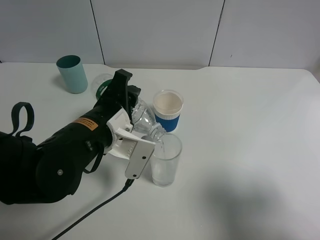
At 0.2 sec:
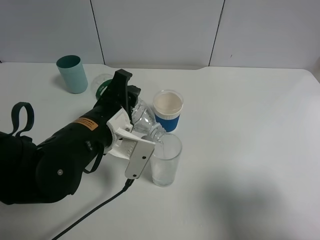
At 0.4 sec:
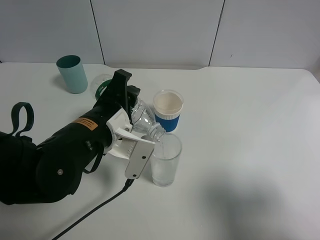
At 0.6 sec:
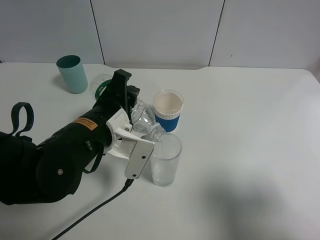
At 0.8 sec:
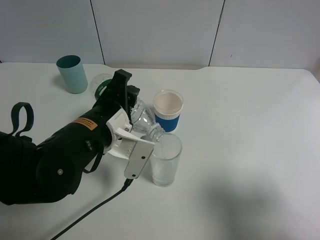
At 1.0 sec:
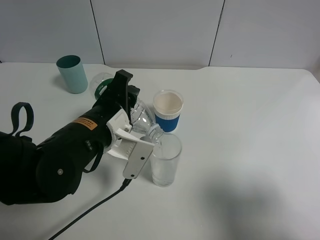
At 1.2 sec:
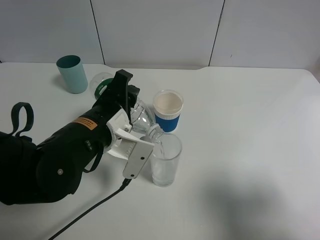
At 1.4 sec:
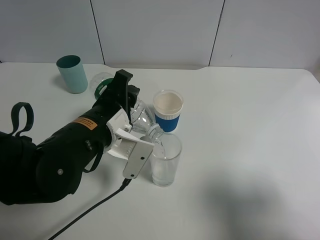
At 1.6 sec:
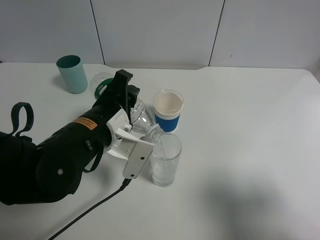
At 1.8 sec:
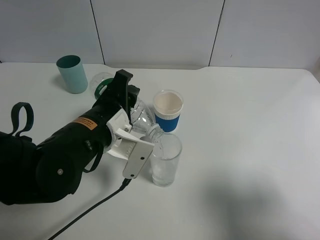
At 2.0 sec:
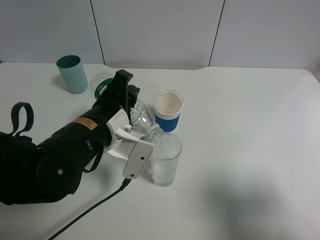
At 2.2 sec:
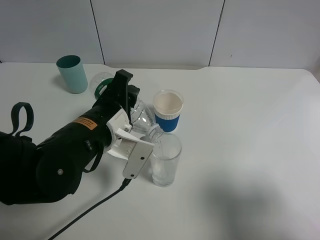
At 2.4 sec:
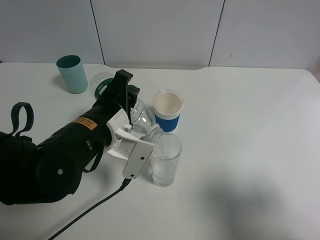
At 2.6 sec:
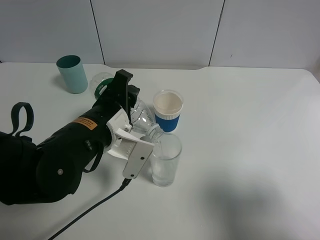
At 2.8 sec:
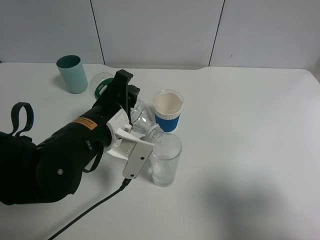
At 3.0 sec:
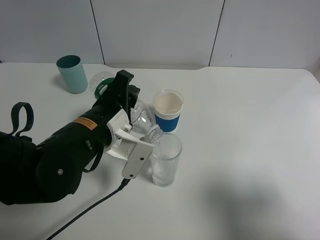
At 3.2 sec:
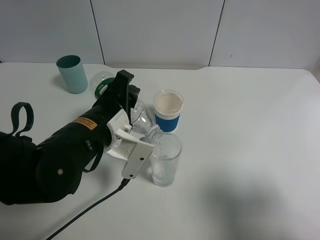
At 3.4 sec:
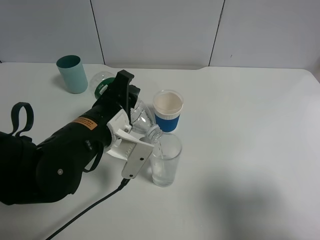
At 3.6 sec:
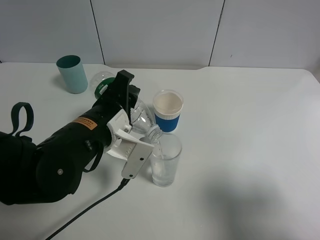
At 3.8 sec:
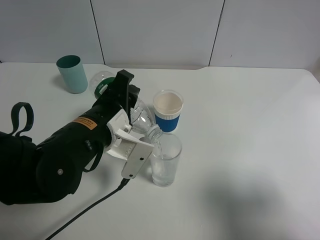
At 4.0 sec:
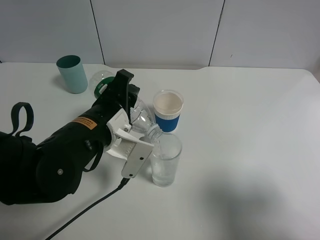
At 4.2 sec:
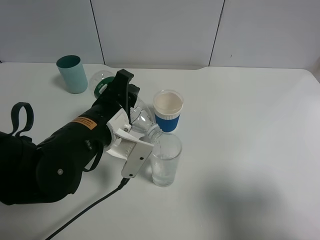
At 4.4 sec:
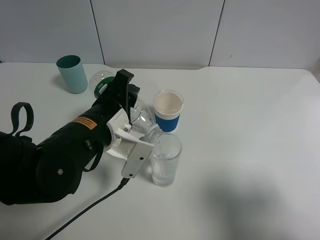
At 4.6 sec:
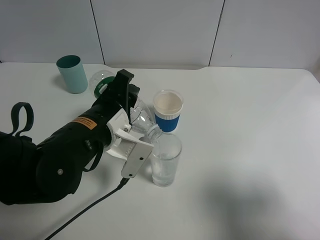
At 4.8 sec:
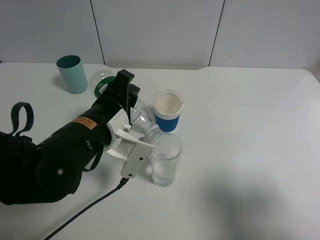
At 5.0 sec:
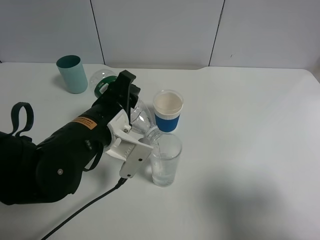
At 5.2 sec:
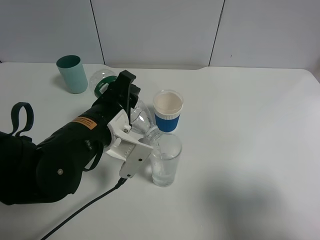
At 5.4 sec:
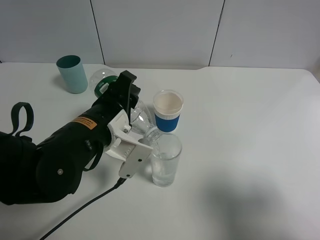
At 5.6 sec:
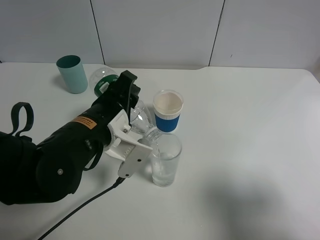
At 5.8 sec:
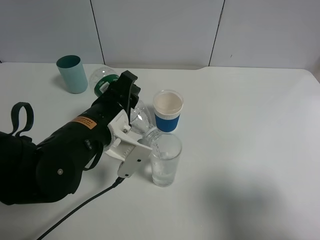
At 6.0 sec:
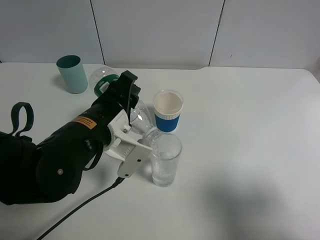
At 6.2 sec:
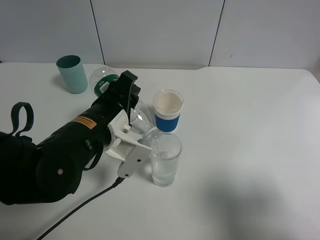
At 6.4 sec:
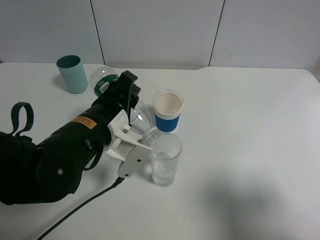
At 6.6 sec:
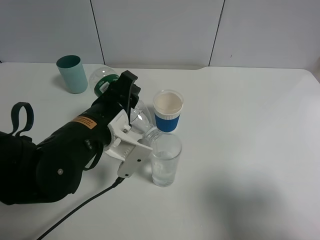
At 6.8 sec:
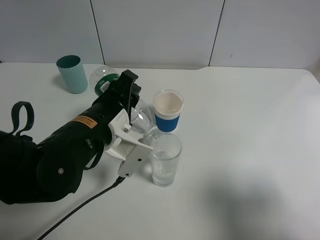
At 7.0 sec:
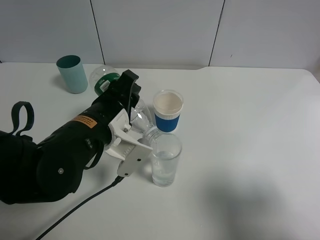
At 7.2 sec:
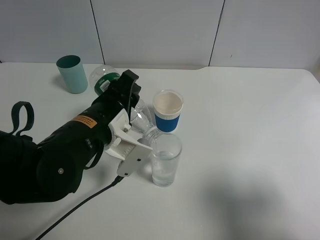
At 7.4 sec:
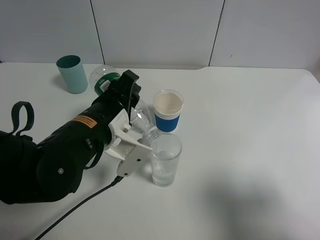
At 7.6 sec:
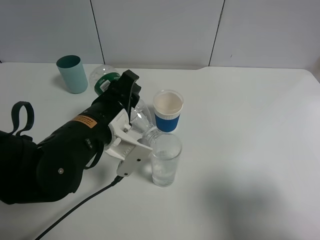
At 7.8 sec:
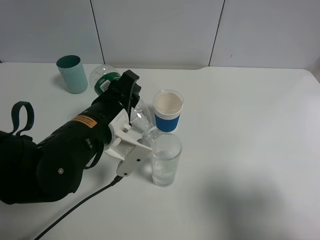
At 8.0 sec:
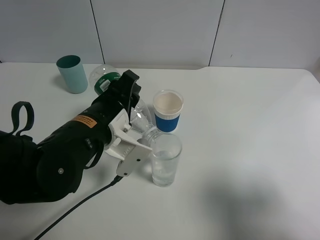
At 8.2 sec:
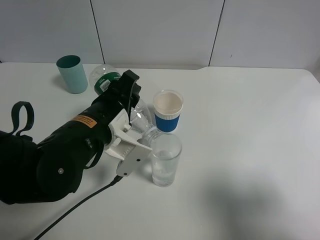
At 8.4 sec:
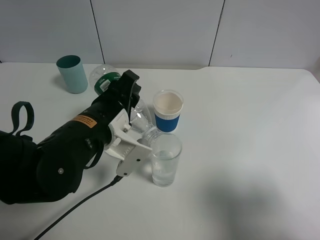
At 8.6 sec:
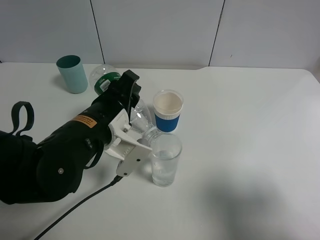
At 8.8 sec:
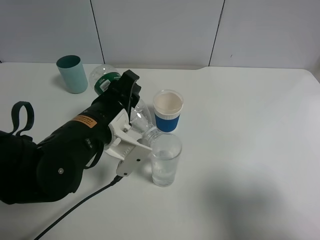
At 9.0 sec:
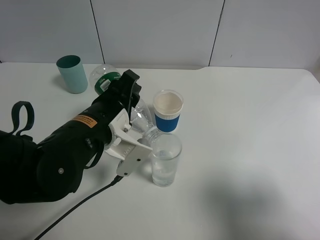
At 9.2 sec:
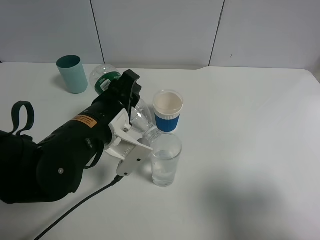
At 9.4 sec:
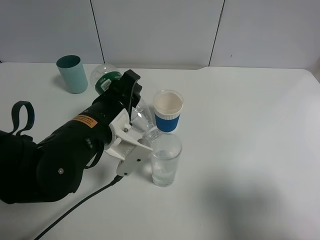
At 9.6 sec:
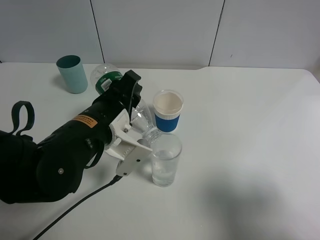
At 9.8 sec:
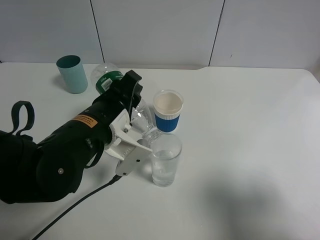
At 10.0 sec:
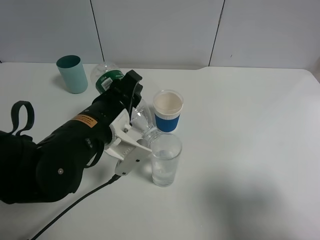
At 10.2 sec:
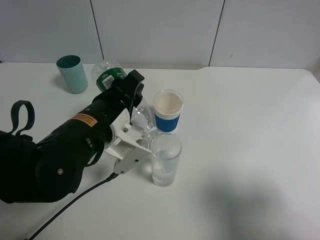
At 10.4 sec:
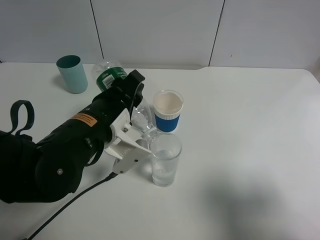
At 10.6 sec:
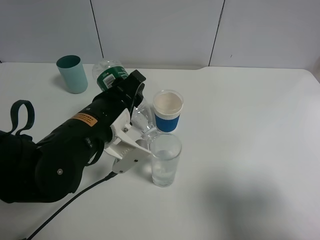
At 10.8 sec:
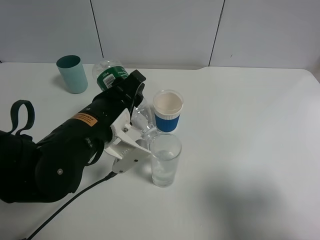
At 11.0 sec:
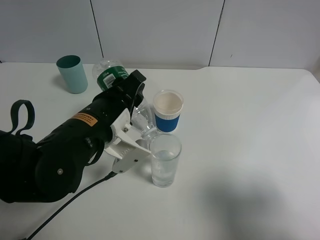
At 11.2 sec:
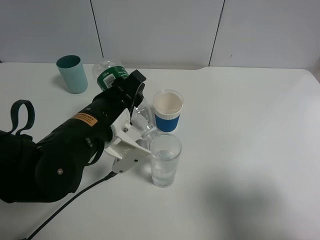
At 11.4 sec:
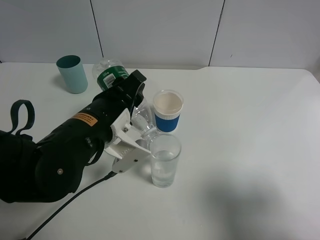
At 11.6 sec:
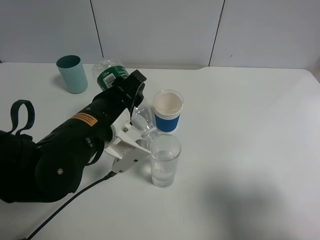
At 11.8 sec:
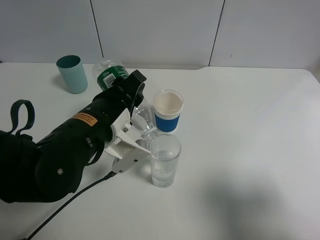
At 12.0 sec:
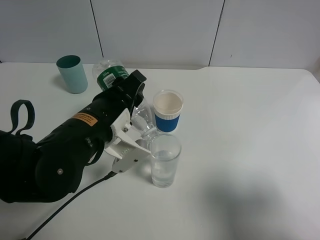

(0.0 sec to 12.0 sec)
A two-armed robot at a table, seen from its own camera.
Task of the whole recording: use a gripper to hold the bottle of the drink and pour it into a random cup.
0.0 sec - 4.4 sec: Neither gripper changes place.
4.4 sec - 6.0 sec: The grippers move only a little.
6.0 sec - 9.0 sec: Neither gripper changes place.
9.0 sec - 10.4 sec: There are only small adjustments of the grippers.
10.4 sec - 12.0 sec: Both grippers stay put.

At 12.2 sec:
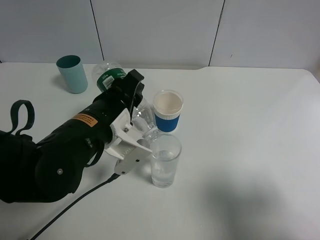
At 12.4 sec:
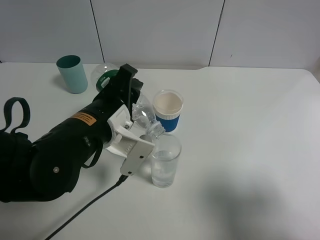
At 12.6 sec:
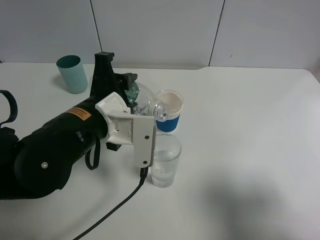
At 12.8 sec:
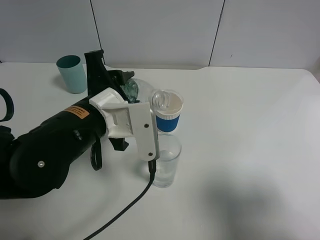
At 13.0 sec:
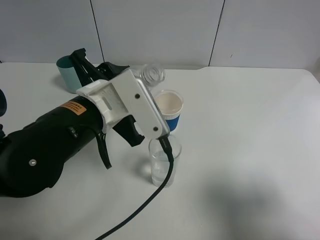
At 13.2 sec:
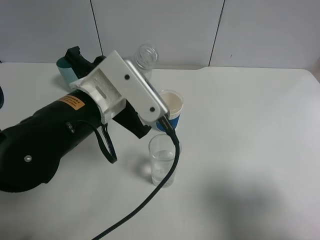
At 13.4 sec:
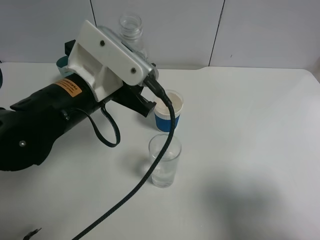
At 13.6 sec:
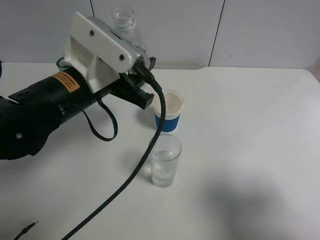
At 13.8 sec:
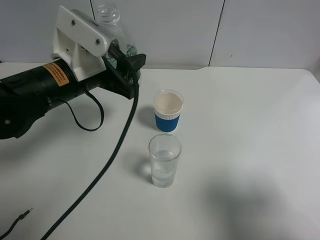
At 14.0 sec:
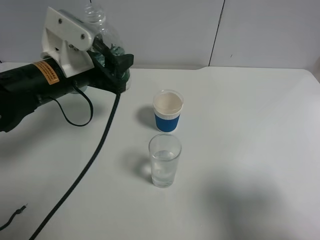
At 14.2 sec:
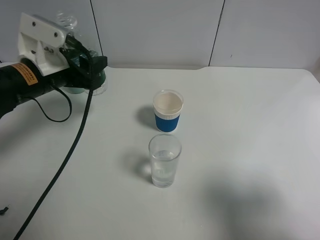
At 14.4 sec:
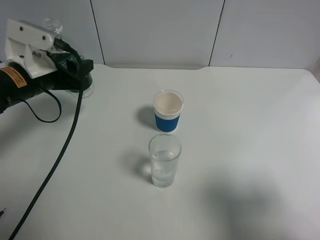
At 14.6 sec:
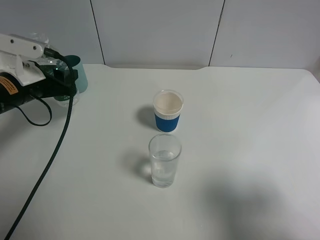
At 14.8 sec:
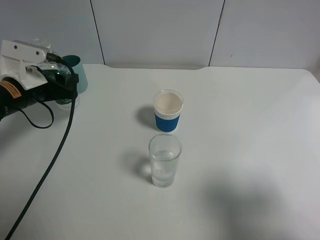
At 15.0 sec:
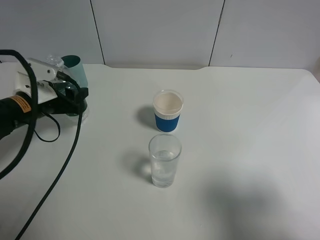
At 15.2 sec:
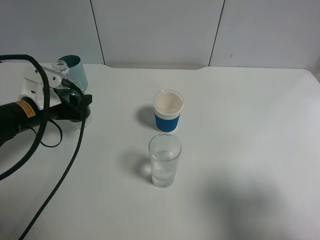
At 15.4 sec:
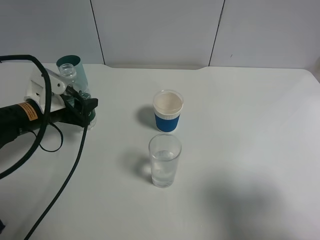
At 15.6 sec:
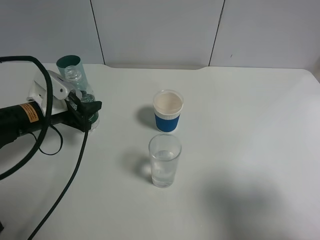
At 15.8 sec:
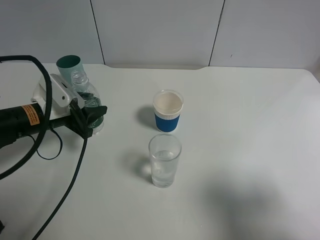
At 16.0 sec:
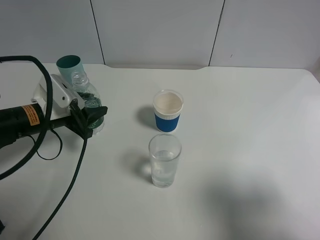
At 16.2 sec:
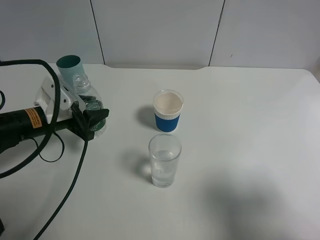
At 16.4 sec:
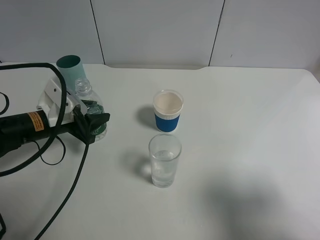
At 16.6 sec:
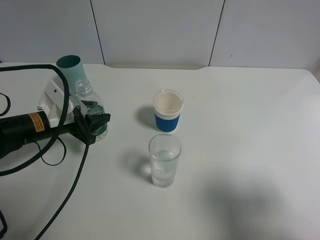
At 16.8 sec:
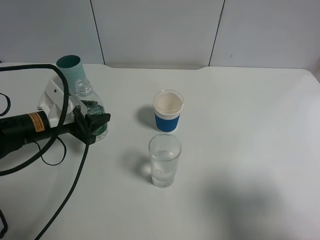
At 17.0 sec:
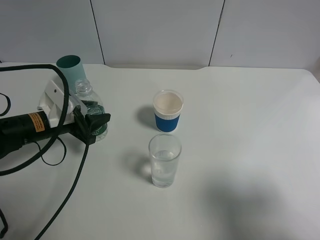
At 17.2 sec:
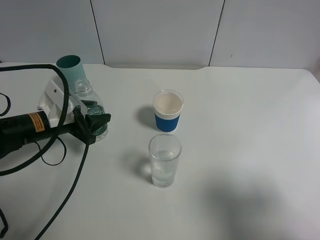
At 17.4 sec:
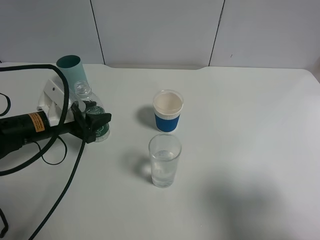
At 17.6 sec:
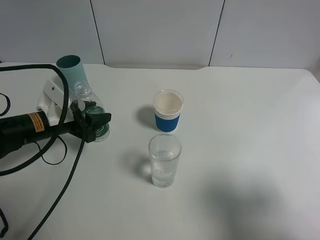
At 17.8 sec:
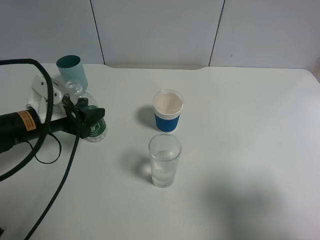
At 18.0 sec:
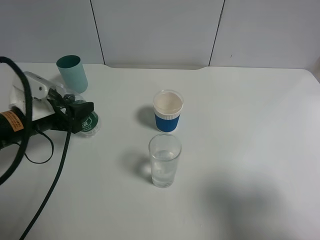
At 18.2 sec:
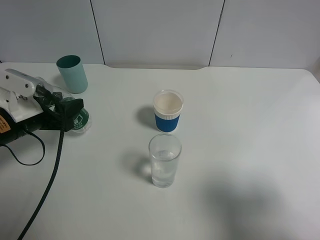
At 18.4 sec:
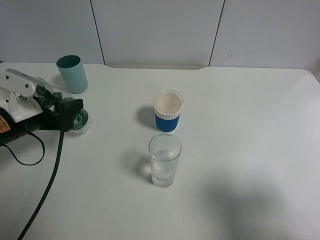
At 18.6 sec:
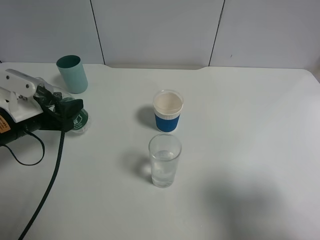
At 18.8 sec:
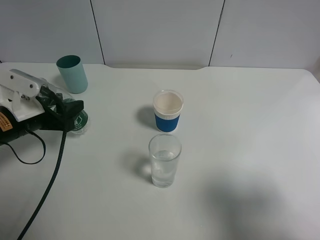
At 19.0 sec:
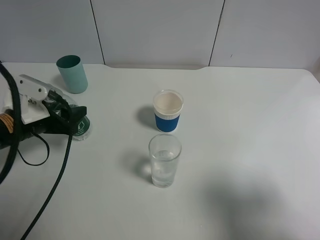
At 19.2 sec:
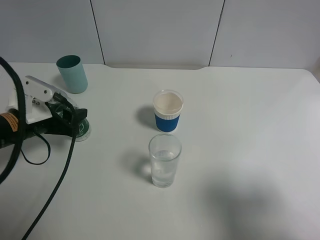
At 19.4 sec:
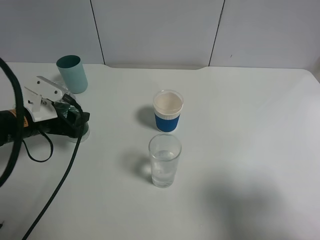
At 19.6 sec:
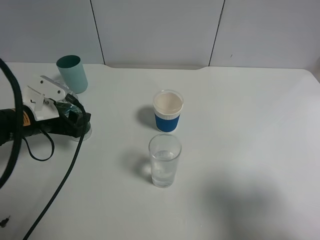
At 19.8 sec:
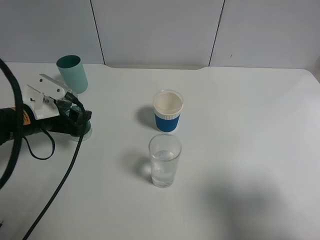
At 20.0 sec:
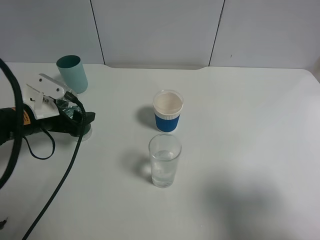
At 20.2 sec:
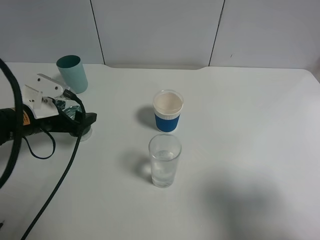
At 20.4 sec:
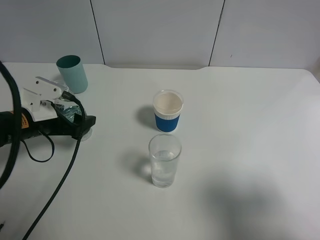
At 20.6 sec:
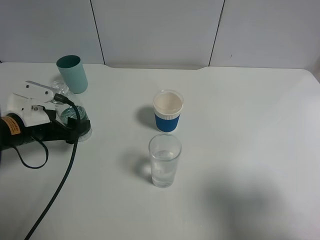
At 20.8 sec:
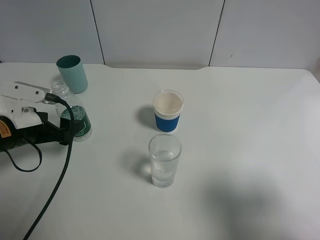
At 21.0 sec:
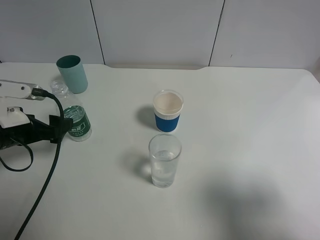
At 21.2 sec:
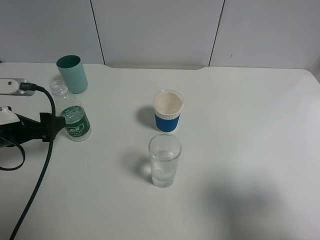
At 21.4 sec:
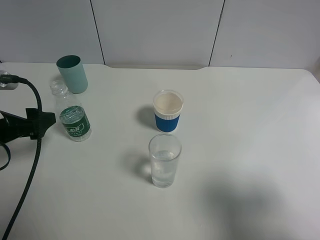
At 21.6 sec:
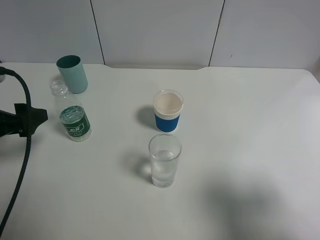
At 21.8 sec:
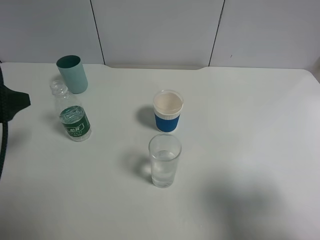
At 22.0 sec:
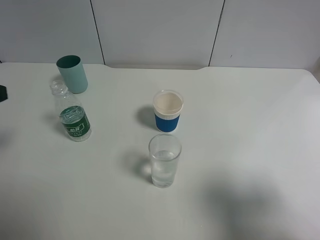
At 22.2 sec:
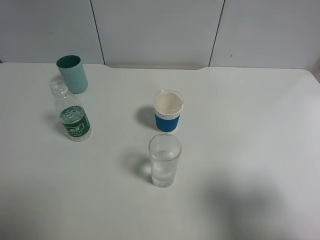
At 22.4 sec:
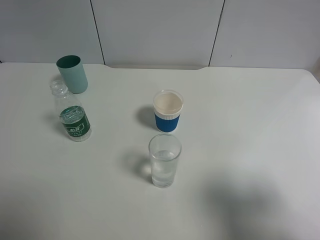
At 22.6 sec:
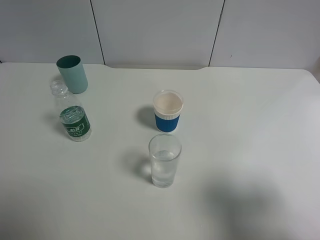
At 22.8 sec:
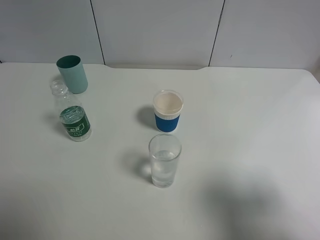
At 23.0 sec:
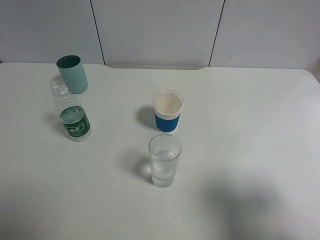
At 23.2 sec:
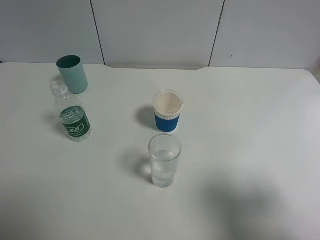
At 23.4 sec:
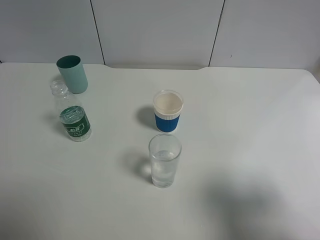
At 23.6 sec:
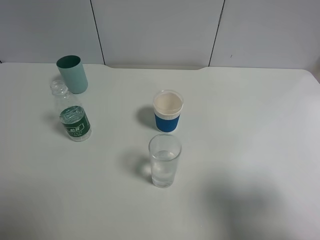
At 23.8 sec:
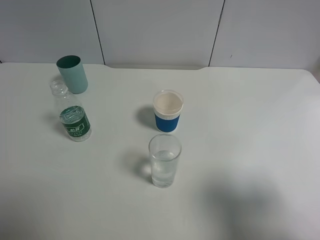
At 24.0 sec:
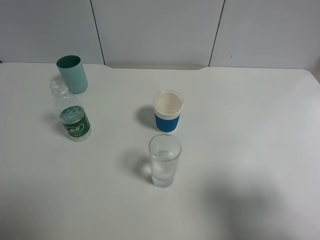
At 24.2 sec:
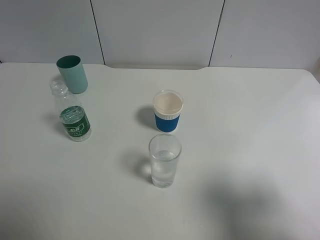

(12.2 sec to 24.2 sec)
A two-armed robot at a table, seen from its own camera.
Task of the whole recording: use a gripper to hold the bottle of the drink and pour it into a random cup.
Step, 12.6 sec - 20.0 sec: Place the mineral water bottle on the table with the left gripper.
12.2 sec - 13.8 sec: The left gripper goes some 5 cm forward.
13.8 sec - 15.2 sec: The left gripper moves to the left and downward, roughly 15 cm.
15.2 sec - 16.6 sec: The grippers stay close to where they were, moving slightly.
16.6 sec - 18.2 sec: The left gripper ends up roughly 5 cm from where it was.
18.2 sec - 19.8 sec: The grippers make only small movements.
19.8 sec - 21.2 sec: The left gripper travels backward by approximately 5 cm, and opens up.
21.2 sec - 22.6 sec: The left gripper moves upward and backward, approximately 25 cm.
